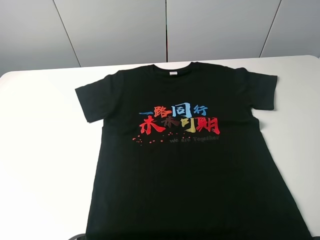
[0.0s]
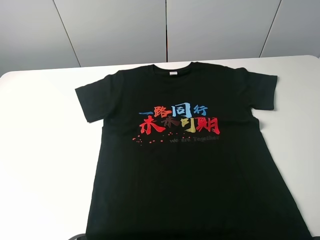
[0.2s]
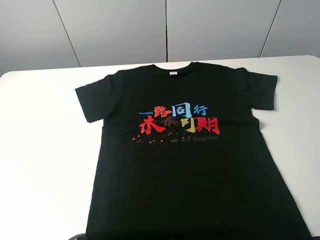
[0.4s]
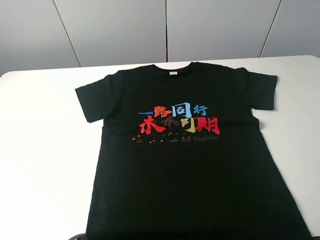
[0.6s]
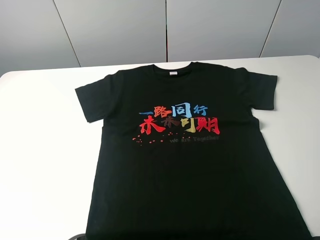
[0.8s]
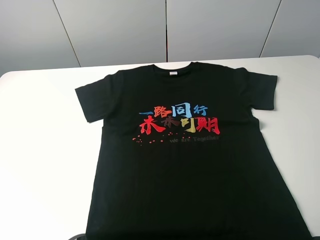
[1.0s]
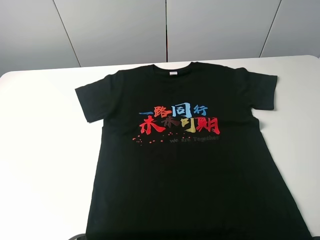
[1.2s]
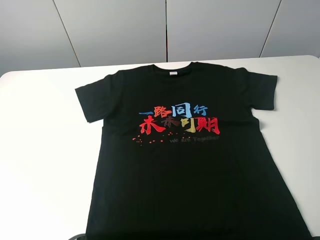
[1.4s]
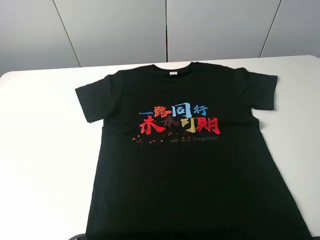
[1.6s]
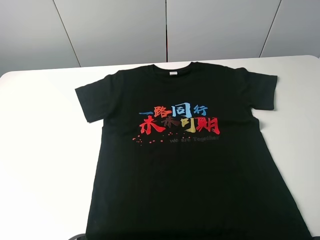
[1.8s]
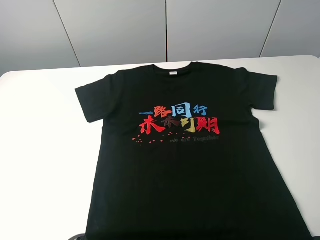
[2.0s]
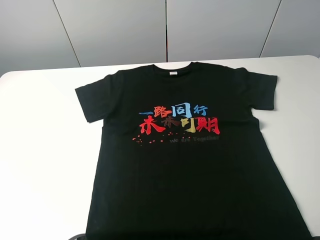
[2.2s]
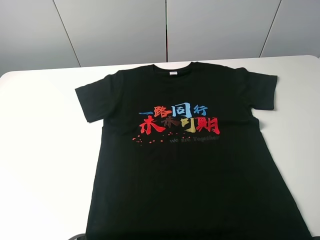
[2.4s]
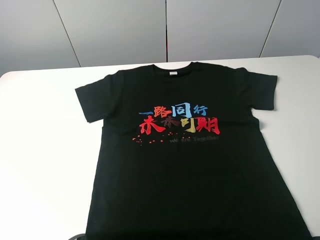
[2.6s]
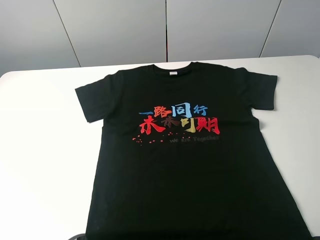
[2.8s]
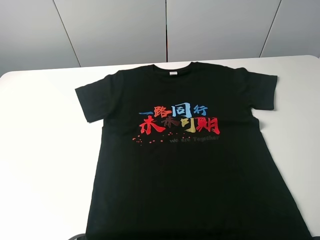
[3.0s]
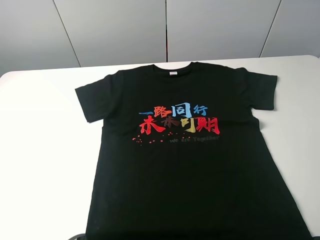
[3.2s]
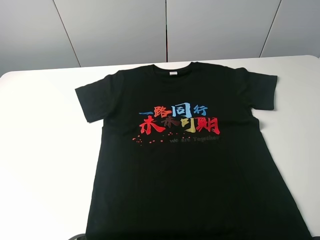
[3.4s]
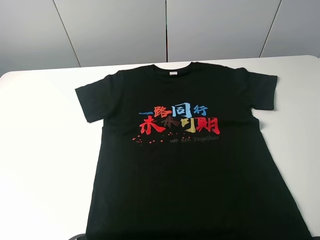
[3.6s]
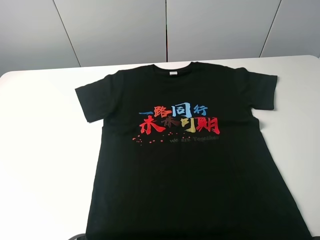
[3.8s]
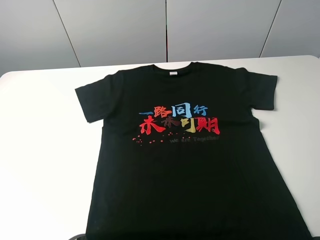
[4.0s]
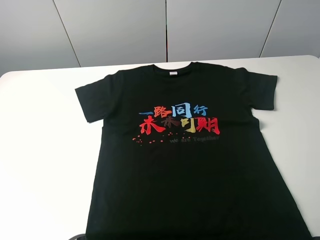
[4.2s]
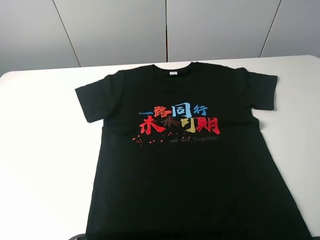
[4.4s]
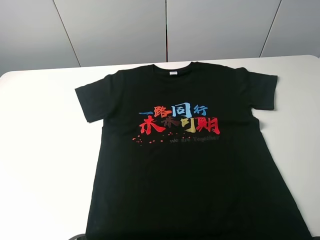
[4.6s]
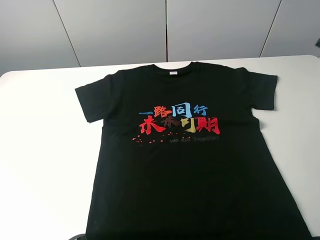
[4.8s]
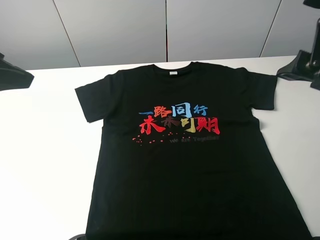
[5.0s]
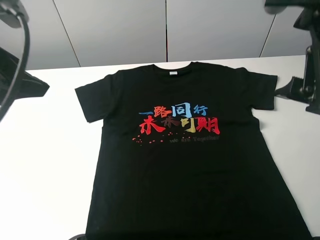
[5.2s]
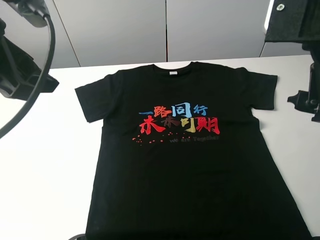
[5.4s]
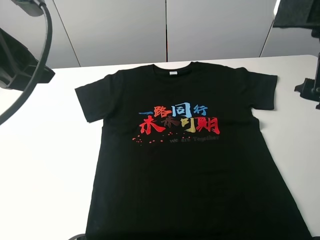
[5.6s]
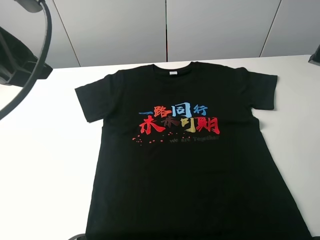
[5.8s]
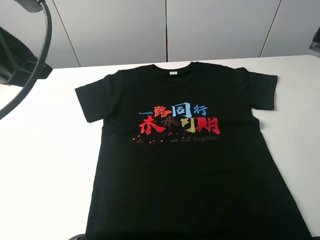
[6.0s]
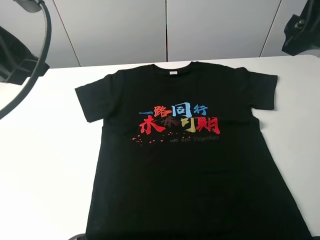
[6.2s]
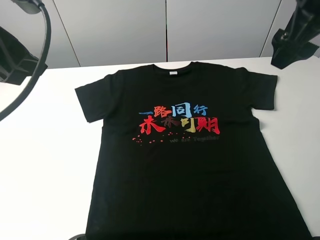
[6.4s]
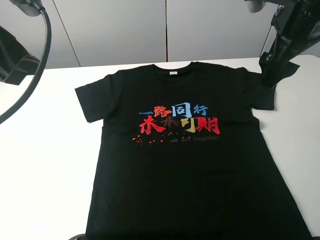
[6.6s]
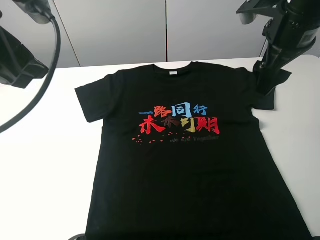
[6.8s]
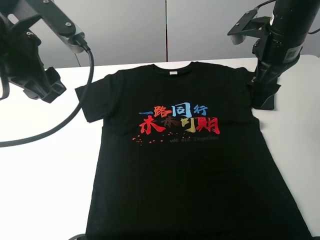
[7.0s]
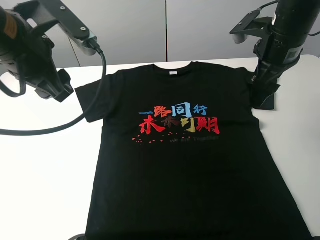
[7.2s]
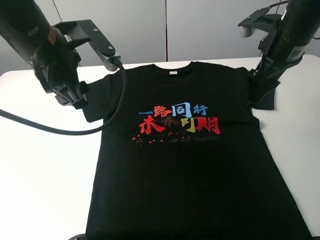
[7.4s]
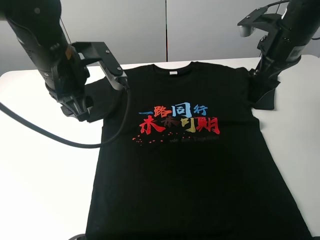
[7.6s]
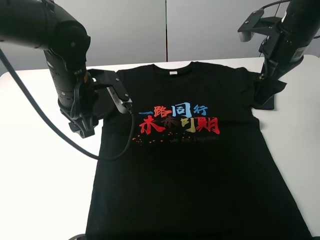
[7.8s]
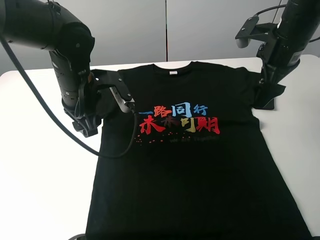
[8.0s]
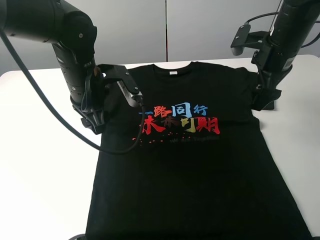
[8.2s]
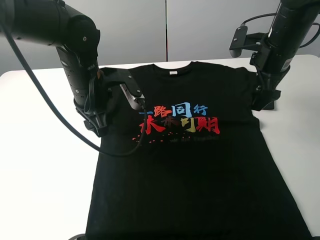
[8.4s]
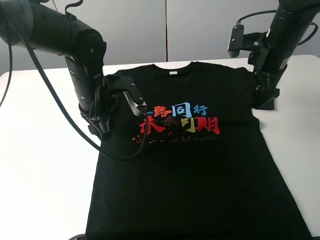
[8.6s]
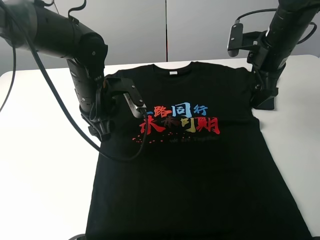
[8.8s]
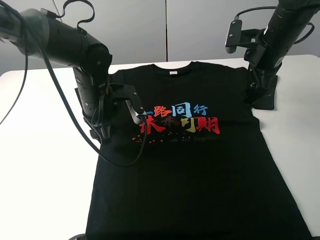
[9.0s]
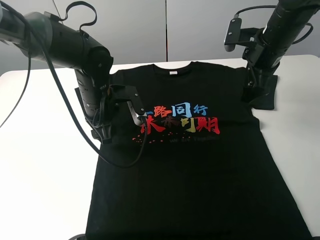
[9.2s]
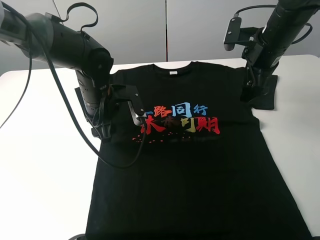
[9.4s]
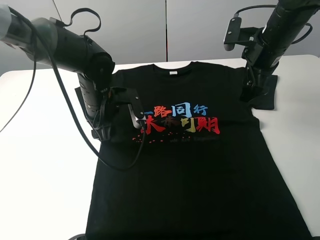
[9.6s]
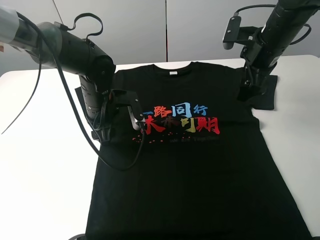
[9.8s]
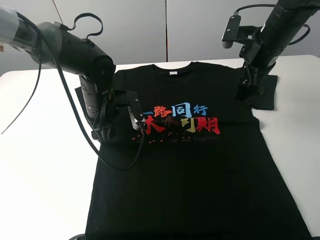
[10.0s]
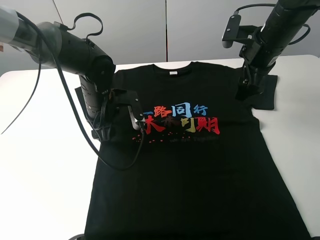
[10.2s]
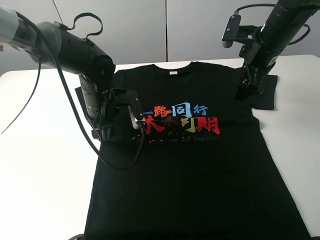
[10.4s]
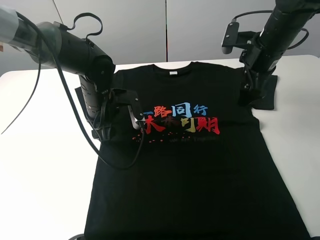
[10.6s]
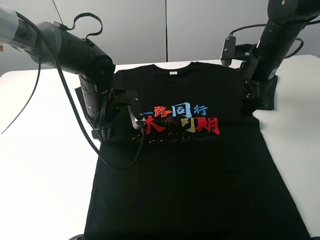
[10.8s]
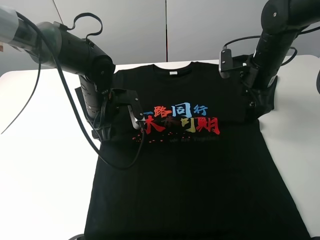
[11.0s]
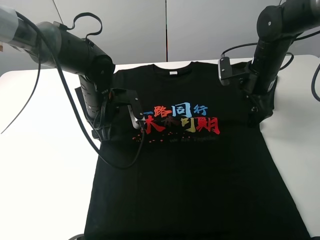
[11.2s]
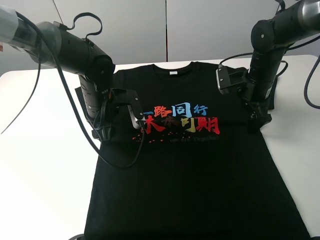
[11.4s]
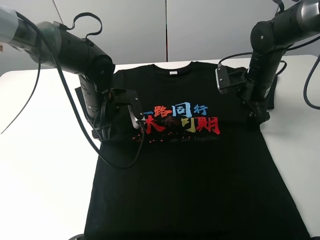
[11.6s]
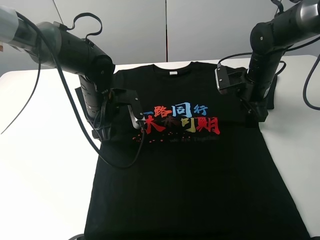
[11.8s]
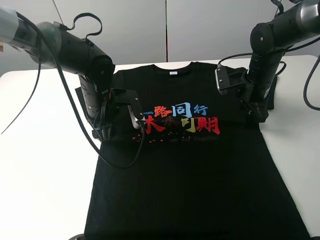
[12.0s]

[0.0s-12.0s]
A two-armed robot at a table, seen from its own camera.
Task of the whole recording: fold the clothes on the table.
0.0s to 3.0s: Both grippers stay about where they are.
4.4s to 6.0s: The left gripper is displaced to the right and forward by roughly 15 cm.
6.0s to 7.6s: The left gripper moves downward, forward and to the right, about 15 cm; the right gripper travels downward and forward by roughly 20 cm.
7.6s to 9.0s: The left gripper travels downward by some 10 cm; the right gripper ends up roughly 5 cm from where it was.
9.0s to 10.4s: There are only small adjustments of the grippers.
10.4s to 12.0s: The right gripper heads downward, covering roughly 10 cm.

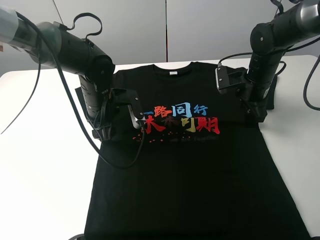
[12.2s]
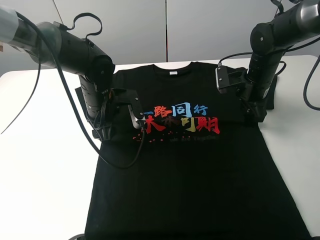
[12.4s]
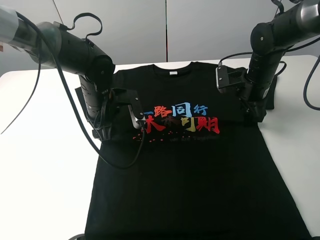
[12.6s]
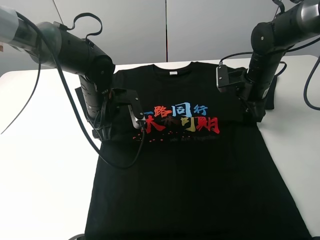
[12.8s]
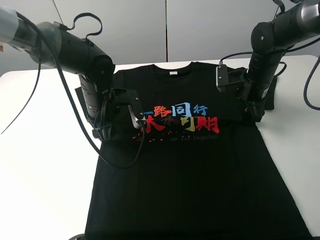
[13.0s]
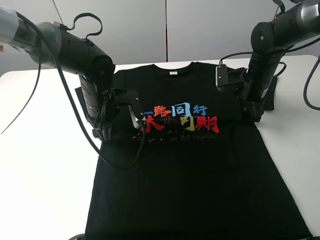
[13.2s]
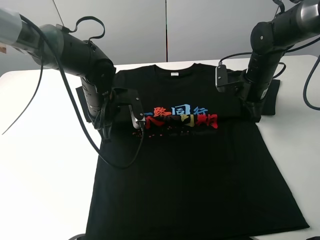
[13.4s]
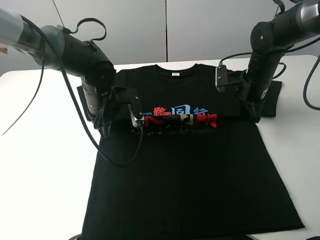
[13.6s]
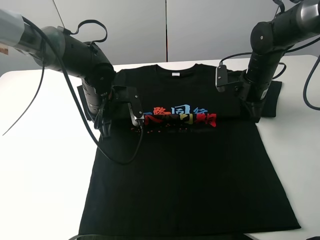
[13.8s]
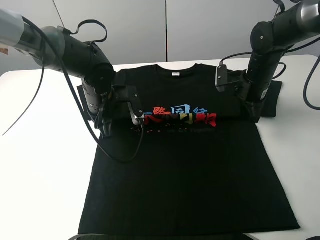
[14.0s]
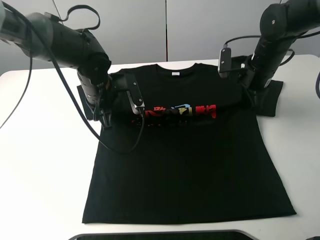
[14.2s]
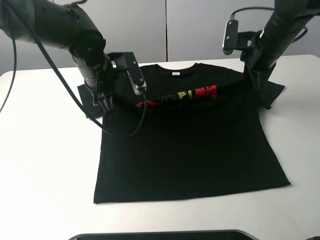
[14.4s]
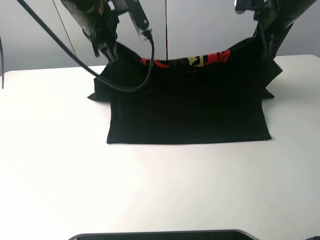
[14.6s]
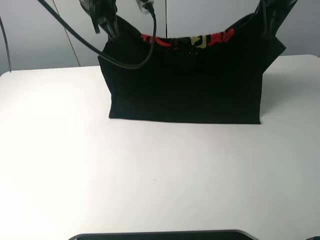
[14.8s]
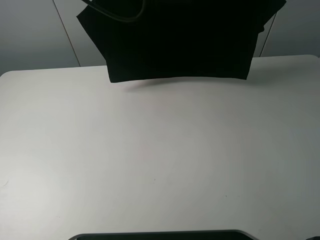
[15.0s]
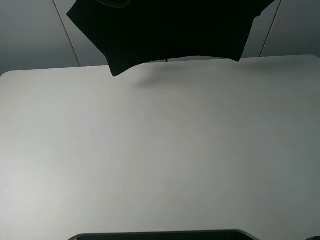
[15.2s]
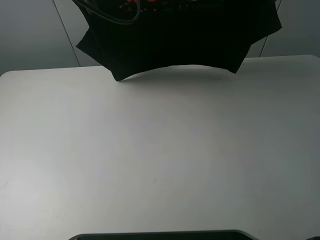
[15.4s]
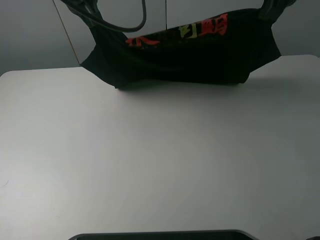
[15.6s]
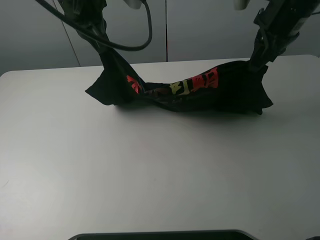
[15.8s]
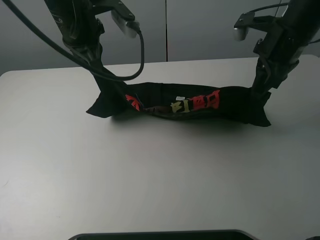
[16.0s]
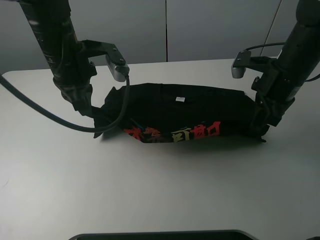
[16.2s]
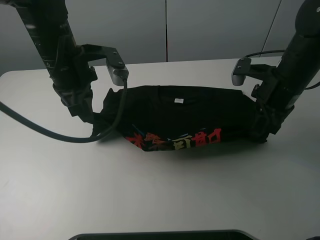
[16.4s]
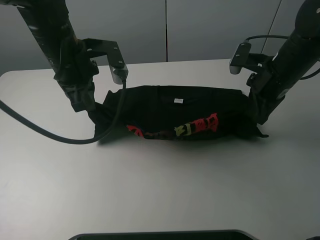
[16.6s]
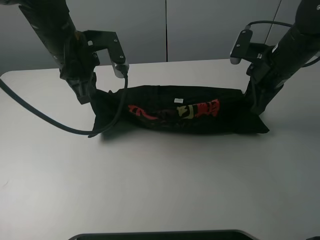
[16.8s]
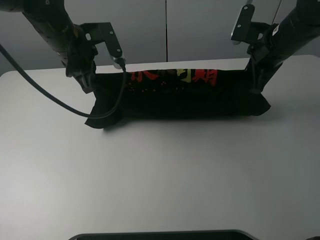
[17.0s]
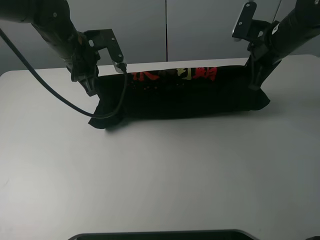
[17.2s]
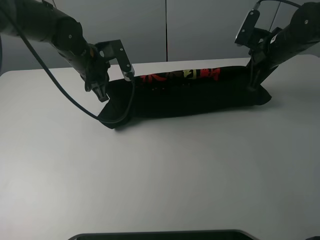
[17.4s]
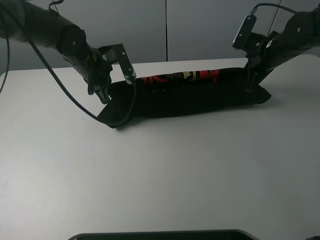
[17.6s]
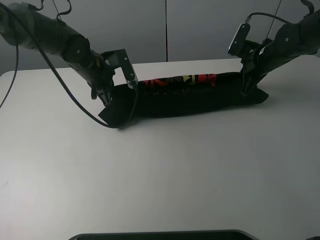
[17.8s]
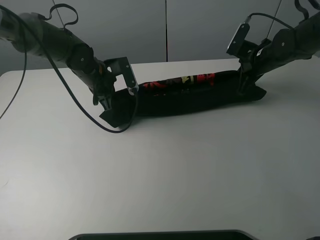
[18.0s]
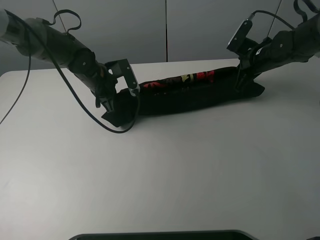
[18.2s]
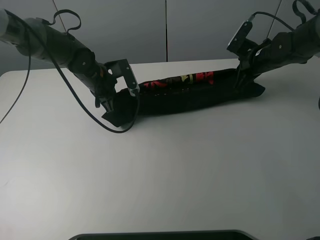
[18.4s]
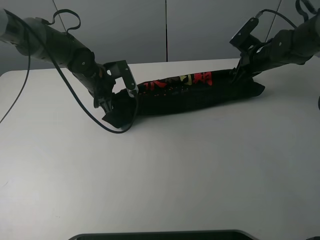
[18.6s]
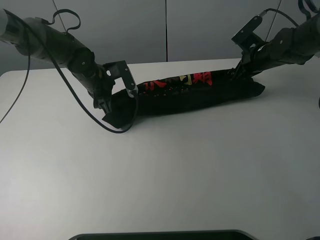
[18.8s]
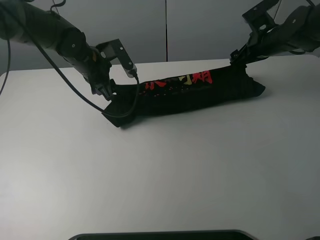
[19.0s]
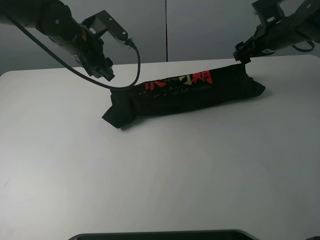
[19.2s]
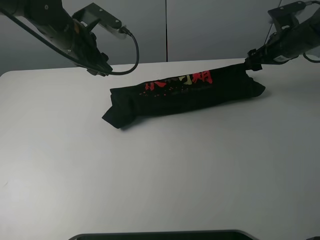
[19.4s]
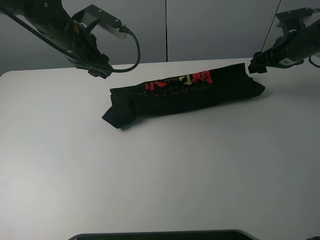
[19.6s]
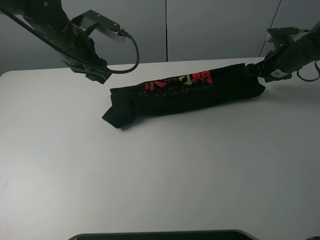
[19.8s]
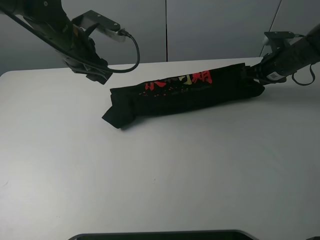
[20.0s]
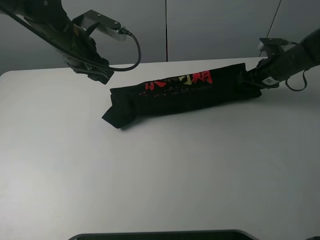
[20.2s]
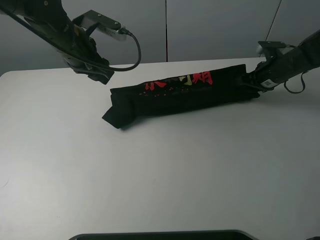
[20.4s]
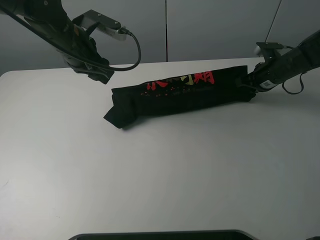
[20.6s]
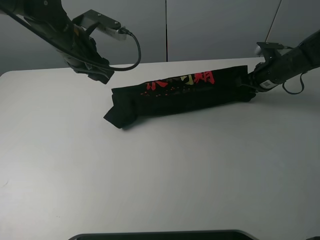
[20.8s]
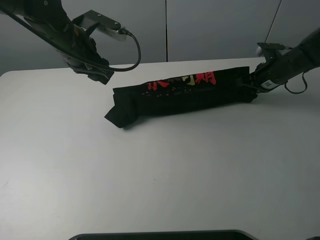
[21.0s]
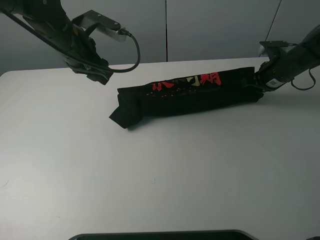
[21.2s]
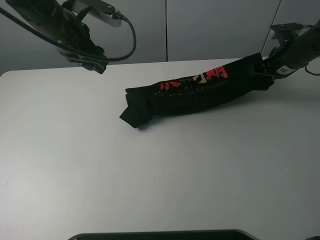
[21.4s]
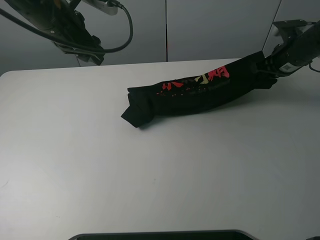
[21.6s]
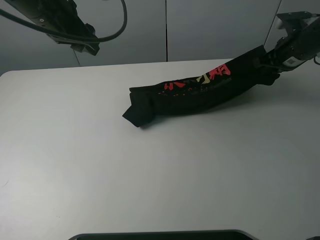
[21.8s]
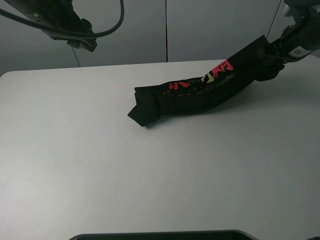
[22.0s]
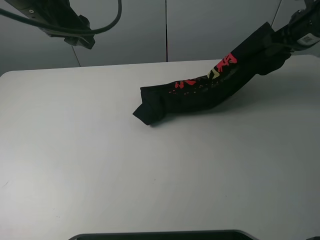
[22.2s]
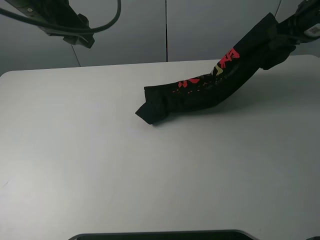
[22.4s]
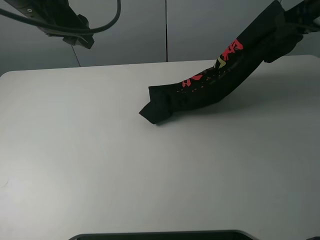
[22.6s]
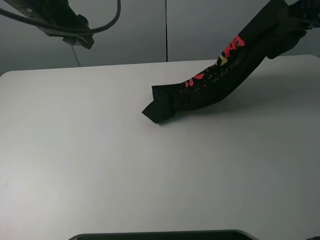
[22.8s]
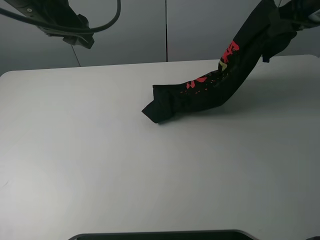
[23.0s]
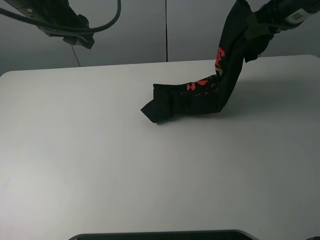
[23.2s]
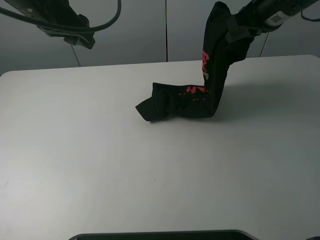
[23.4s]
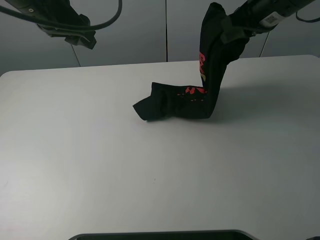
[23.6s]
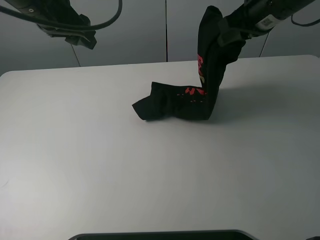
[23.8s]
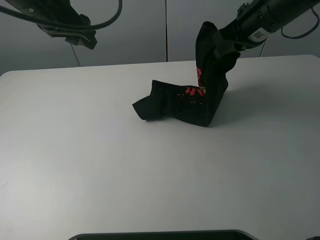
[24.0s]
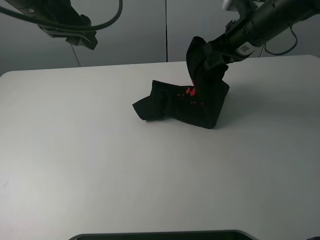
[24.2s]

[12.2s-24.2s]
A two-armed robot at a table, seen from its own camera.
Task of the whole recording: fold the clothes on the table.
Step, 13.4s to 19.0s: Fold the black T-shirt downward with the left gripper.
Step, 19.4s to 21.4s: Grasp the black T-shirt with the right gripper.
12.2s to 13.8s: The right gripper closes its fingers. The left gripper closes its fingers.
13.8s to 15.2s: The grippers both shift upward by approximately 30 cm.
15.2s to 16.6s: Both grippers travel together downward and backward, some 20 cm.
16.6s to 18.2s: The right gripper is displaced forward and downward by some 15 cm, while the left gripper goes approximately 15 cm downward and forward.
18.2s to 19.8s: The right gripper is displaced to the right by approximately 5 cm, and opens up. Meanwhile the left gripper travels upward by about 10 cm, and opens its fingers.
19.8s to 21.2s: The right gripper closes its fingers.
21.2s to 22.6s: The left gripper is displaced upward by about 10 cm, while the right gripper travels upward by about 15 cm.
22.6s to 24.2s: The right gripper moves to the left and downward, some 15 cm.
